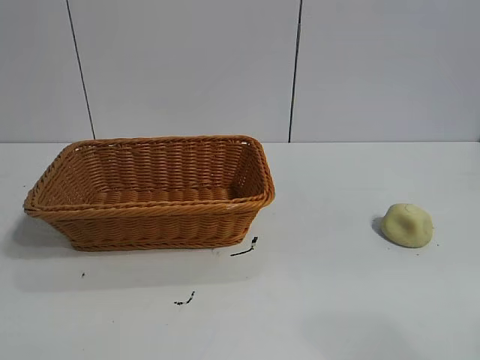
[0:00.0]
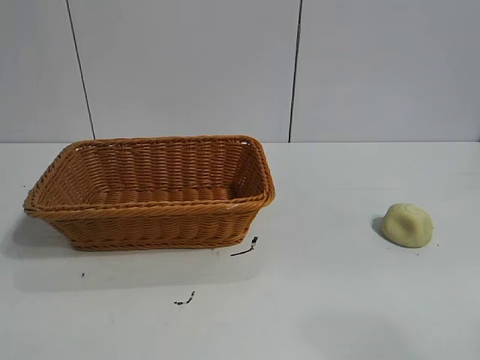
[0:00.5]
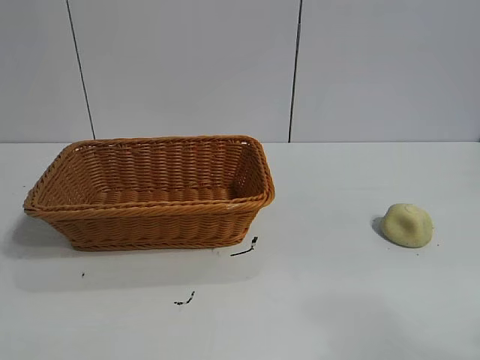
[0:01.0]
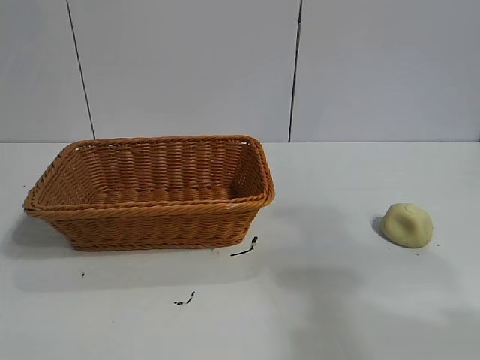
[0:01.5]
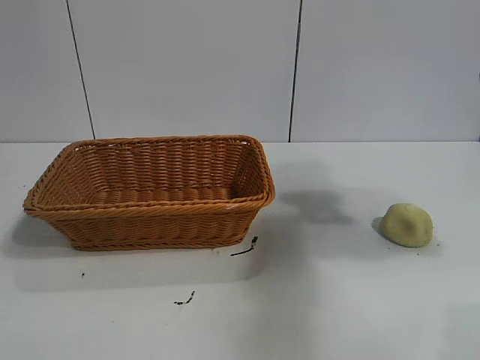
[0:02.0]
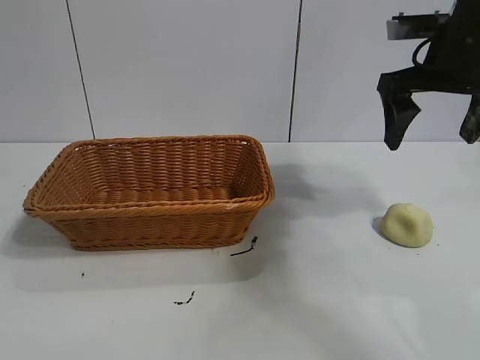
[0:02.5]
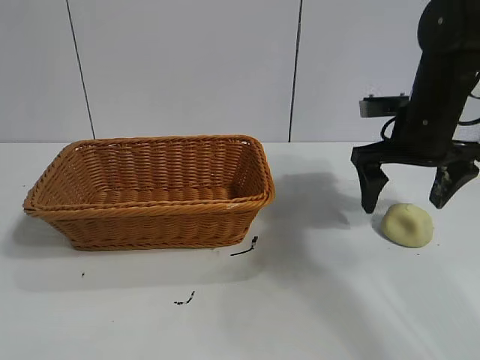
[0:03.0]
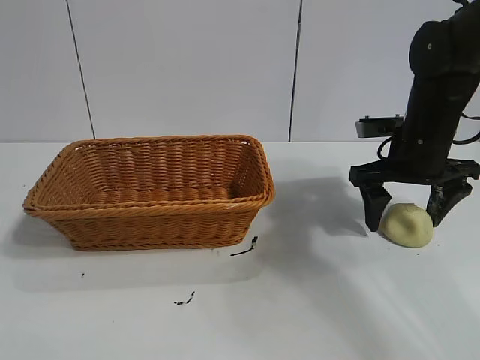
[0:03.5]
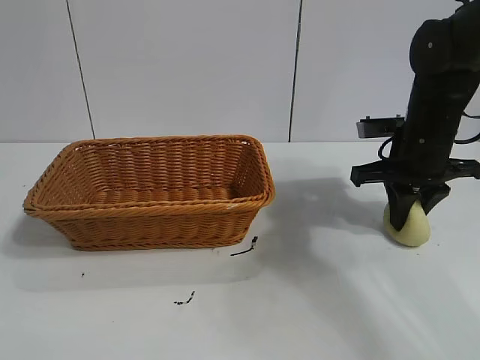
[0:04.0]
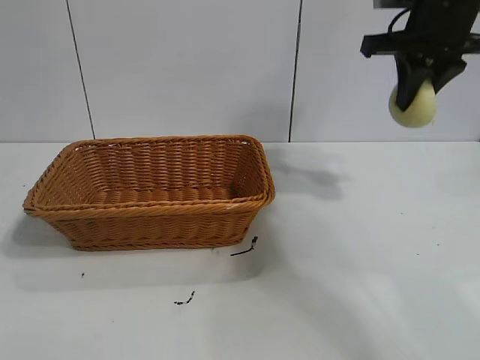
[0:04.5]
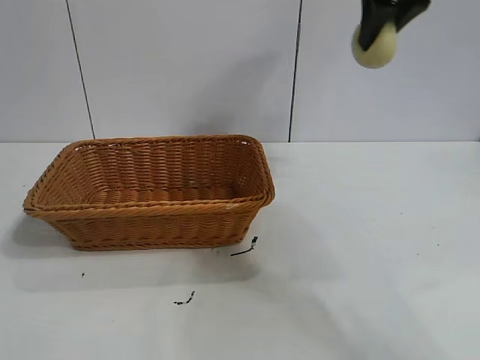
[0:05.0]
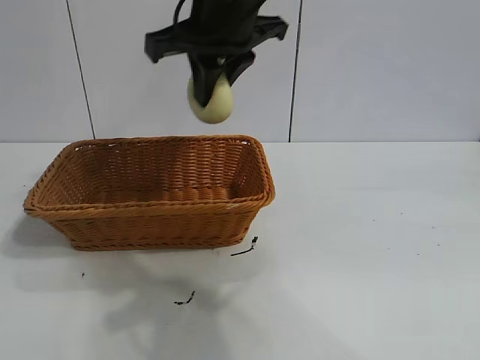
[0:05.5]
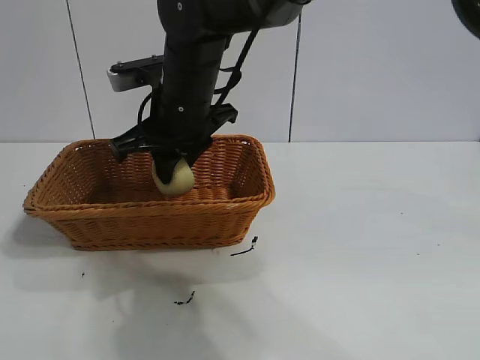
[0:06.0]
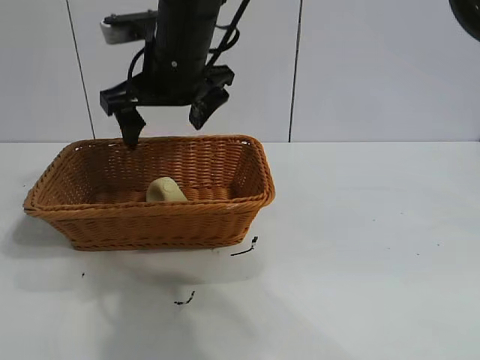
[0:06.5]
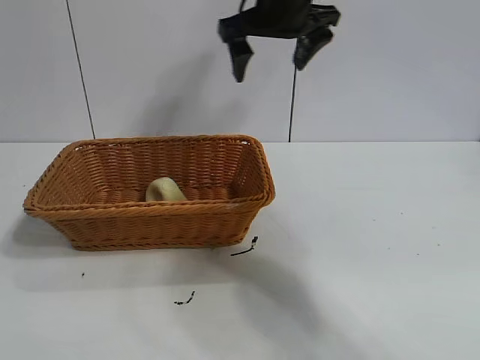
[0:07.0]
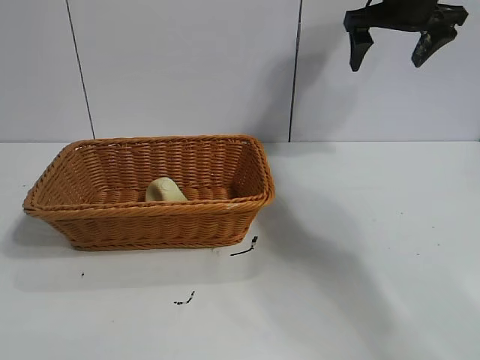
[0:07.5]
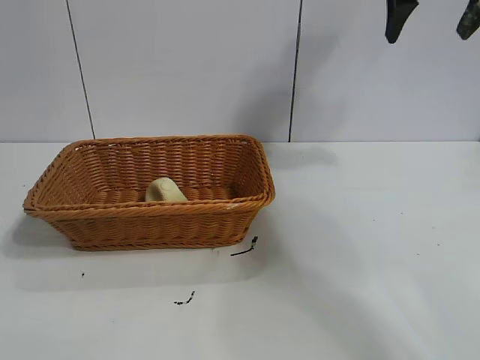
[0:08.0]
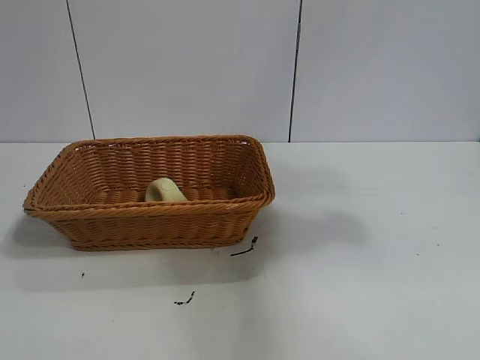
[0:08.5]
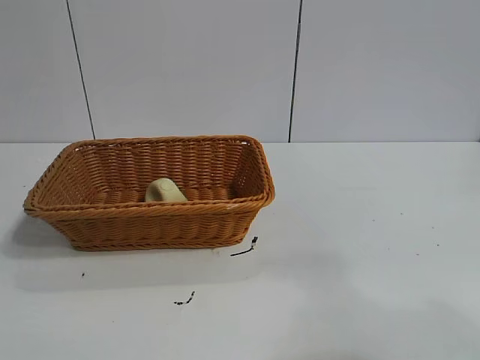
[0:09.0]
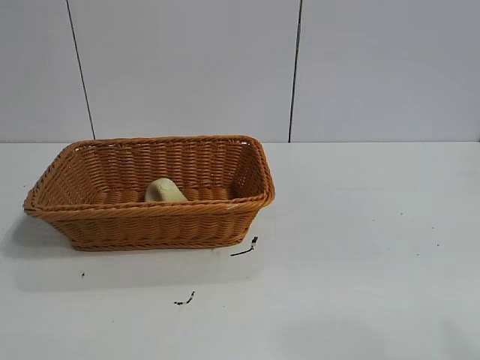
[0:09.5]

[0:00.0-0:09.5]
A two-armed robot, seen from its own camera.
Task of the whole recording: pick up the egg yolk pastry and put it into the basket.
Step, 0:01.0 to 0:03.5: Grasp egg yolk pastry with right gripper.
Step, 0:04.0 to 0:06.0: Place the egg yolk pastry in the basket with right gripper.

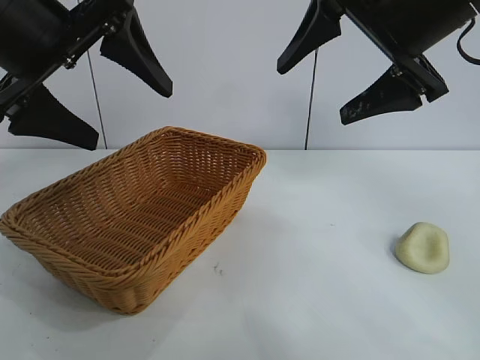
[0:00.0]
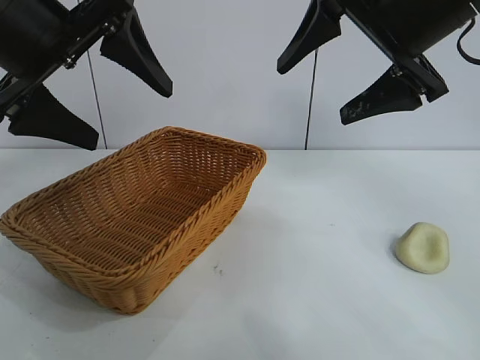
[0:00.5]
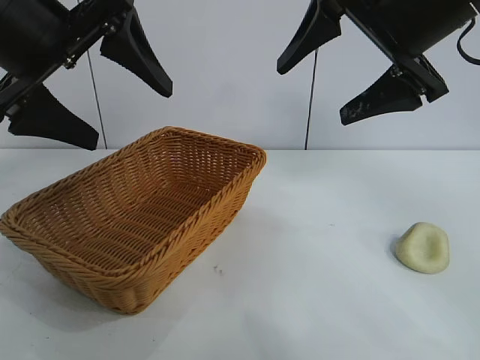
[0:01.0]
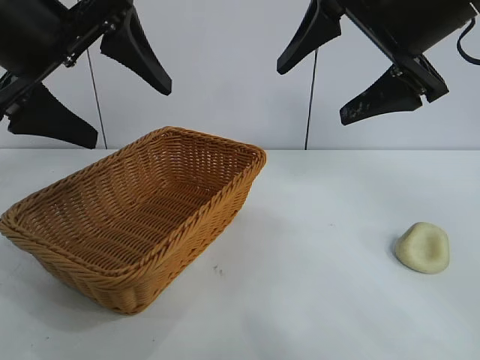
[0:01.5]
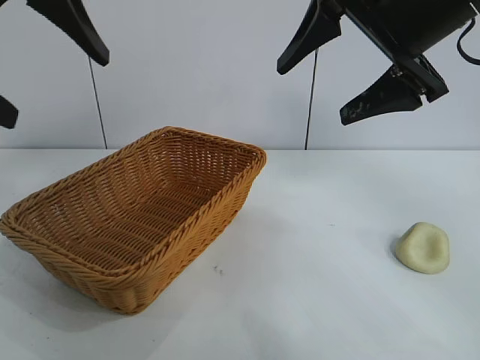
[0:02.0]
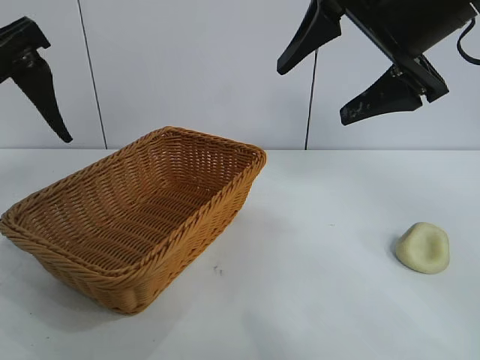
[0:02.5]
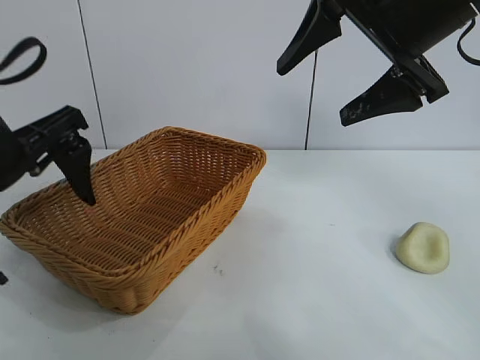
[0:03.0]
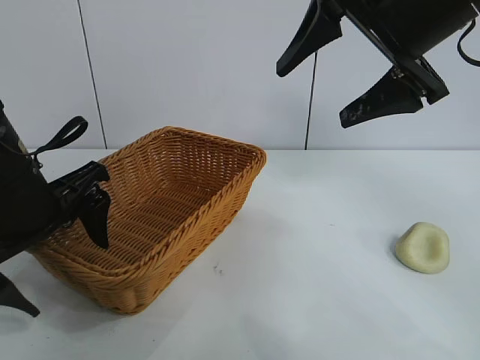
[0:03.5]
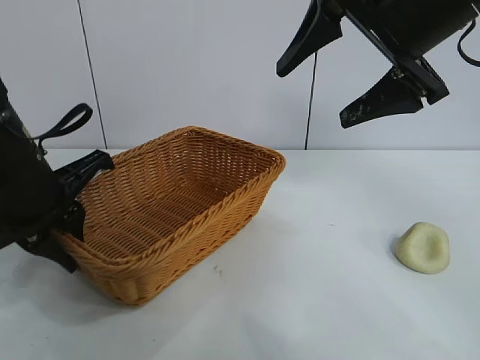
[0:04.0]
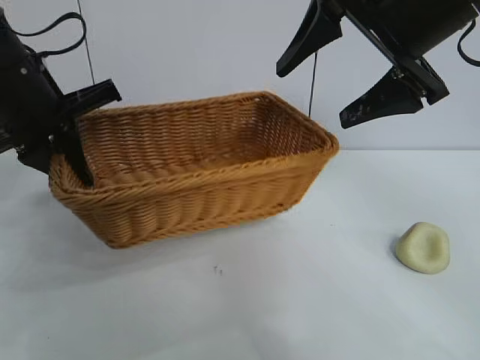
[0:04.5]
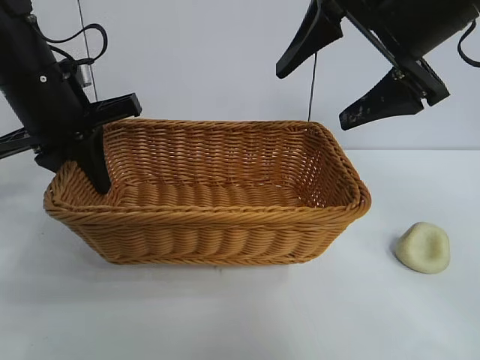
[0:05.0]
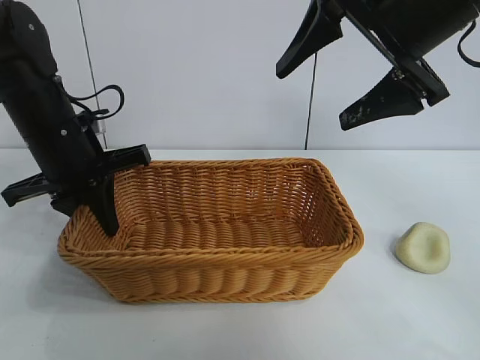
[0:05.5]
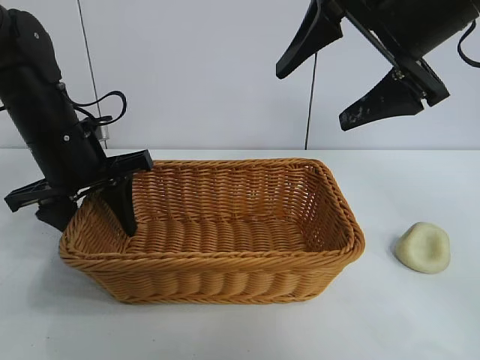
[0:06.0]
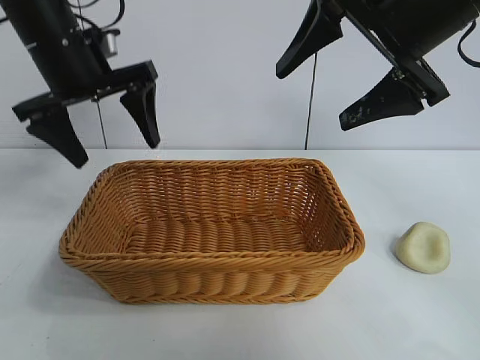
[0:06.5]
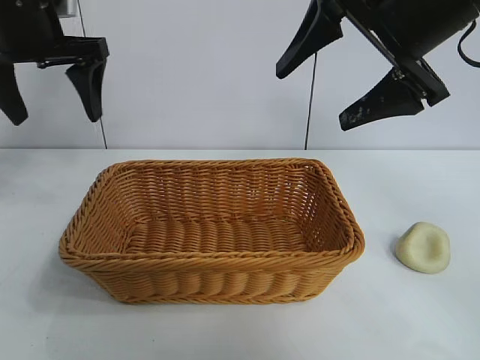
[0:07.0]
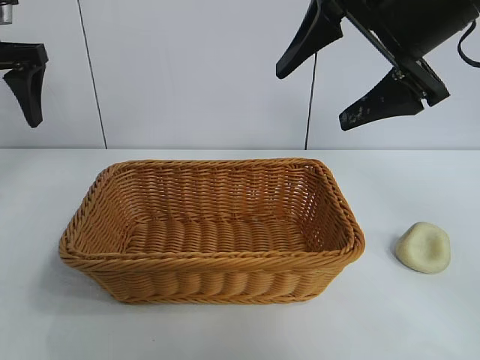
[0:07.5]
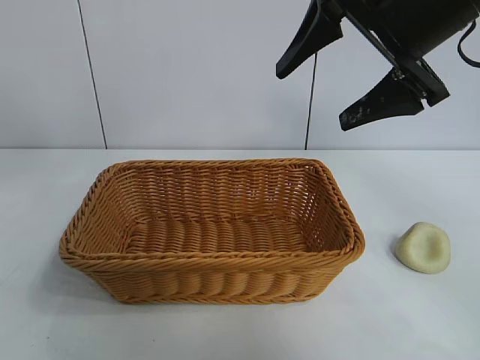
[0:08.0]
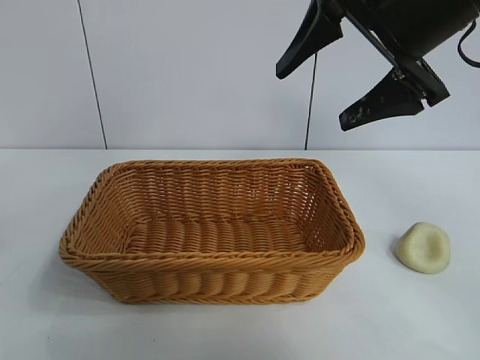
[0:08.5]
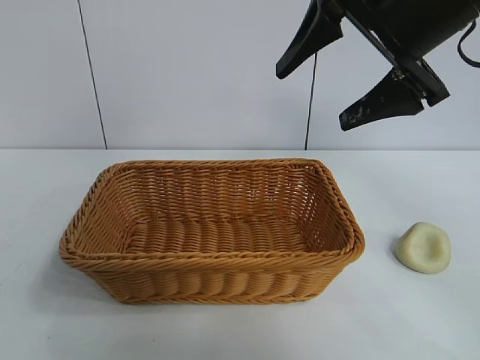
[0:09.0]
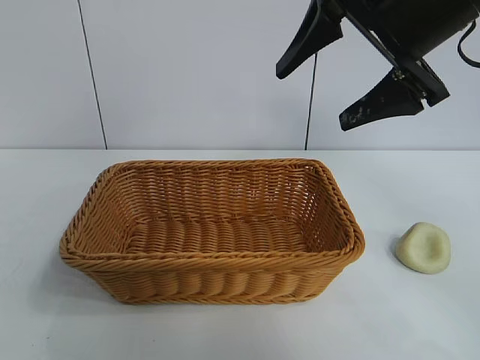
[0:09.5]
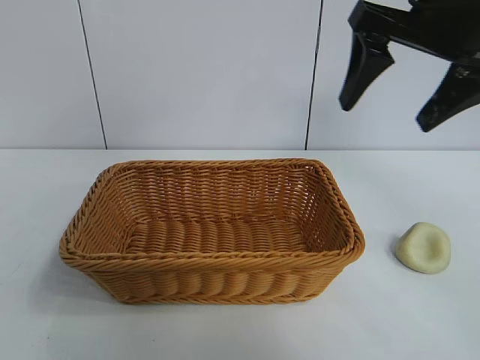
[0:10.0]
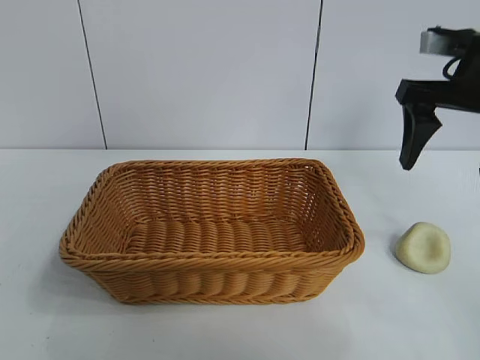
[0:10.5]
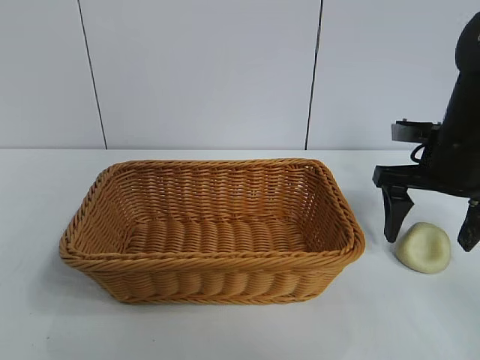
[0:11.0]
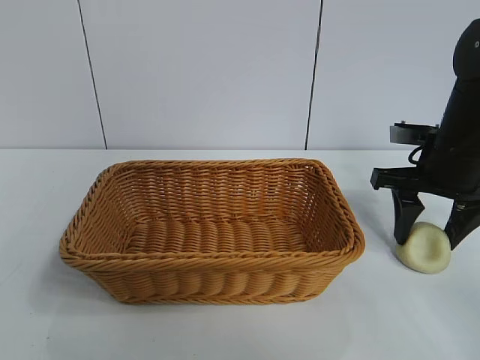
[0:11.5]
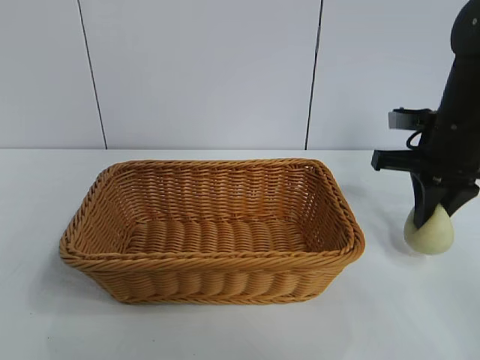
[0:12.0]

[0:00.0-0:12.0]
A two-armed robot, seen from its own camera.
Task of the whole recording: pick up the egg yolk pastry and put it into the basket.
Step, 0:01.5 to 0:03.5: Grasp the basket with left gripper.
Step, 0:04.0 to 0:06.0: Place the basket in the center of view with left gripper.
Step, 0:06.5 to 0:11.5: Grasp egg yolk pastry with right gripper.

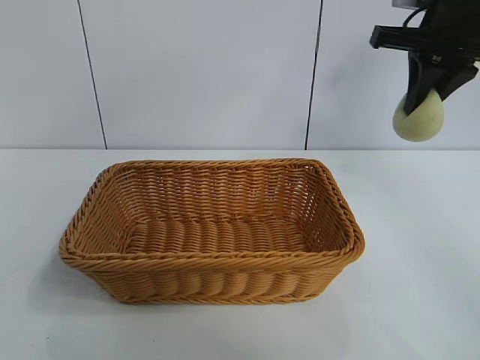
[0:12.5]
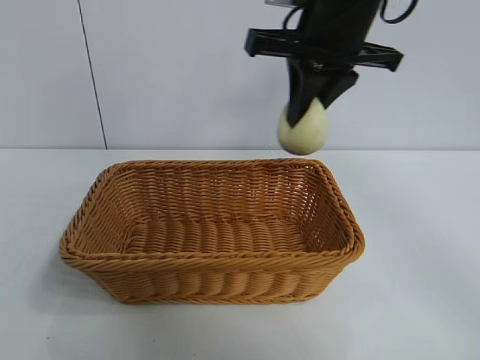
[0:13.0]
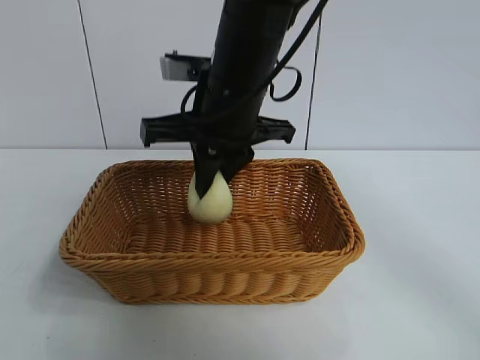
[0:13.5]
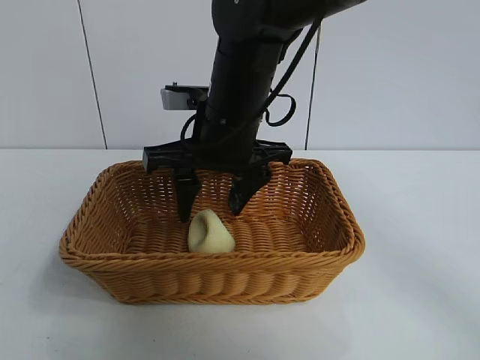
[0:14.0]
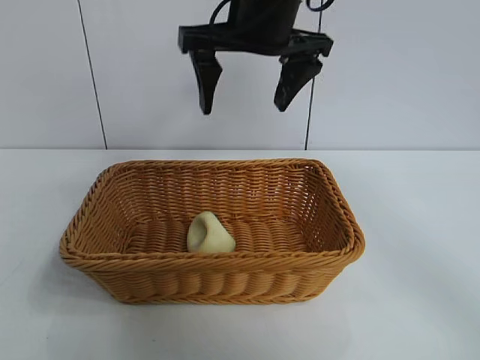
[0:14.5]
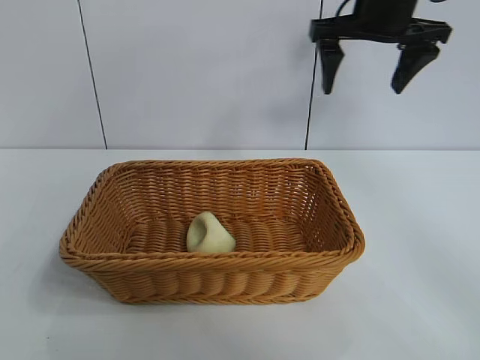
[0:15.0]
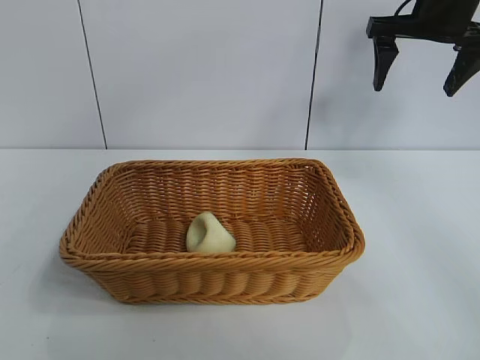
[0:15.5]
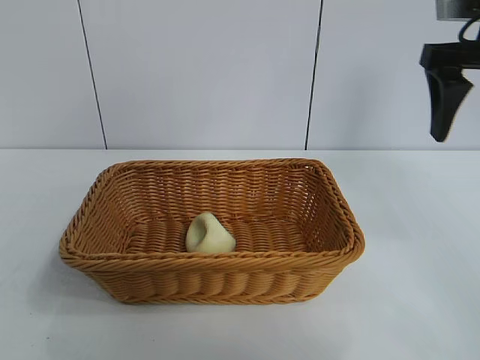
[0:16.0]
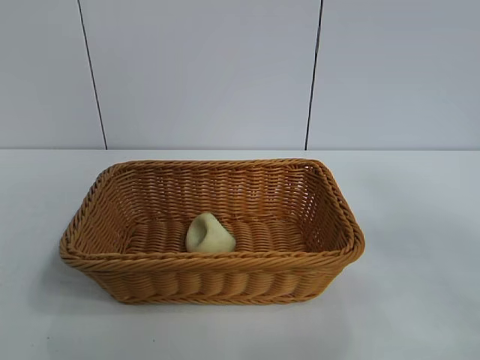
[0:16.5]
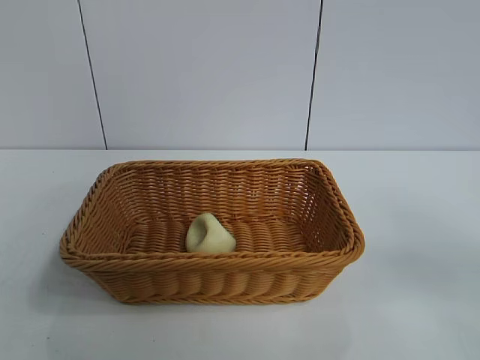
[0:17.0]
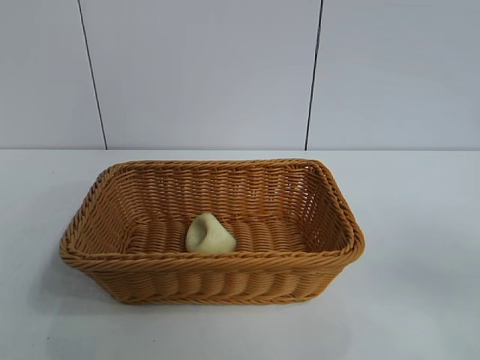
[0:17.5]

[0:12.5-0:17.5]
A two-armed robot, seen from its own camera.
Task of the whole recording: pick up the egg yolk pastry and put it into the basket.
Step, 0:12.5 to 0:14.0: Place the egg yolk pastry in the basket with right gripper.
